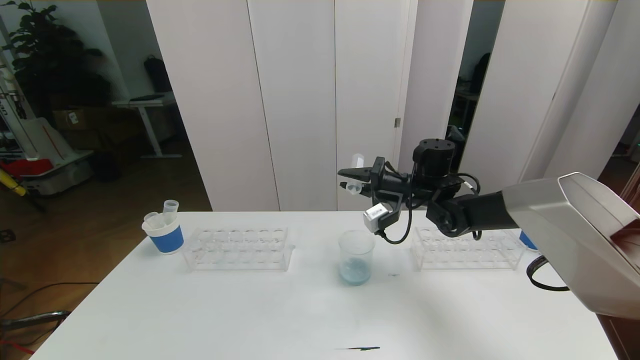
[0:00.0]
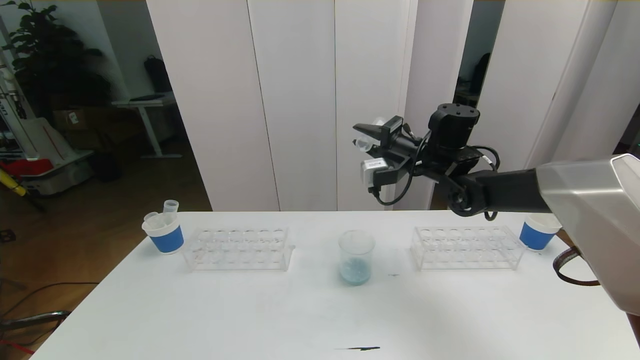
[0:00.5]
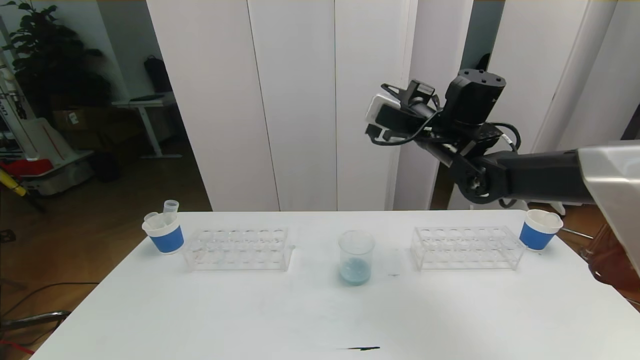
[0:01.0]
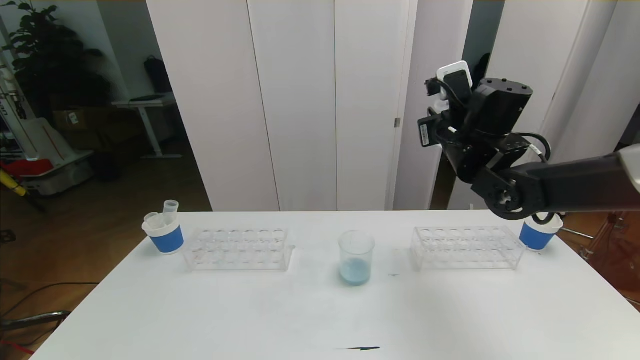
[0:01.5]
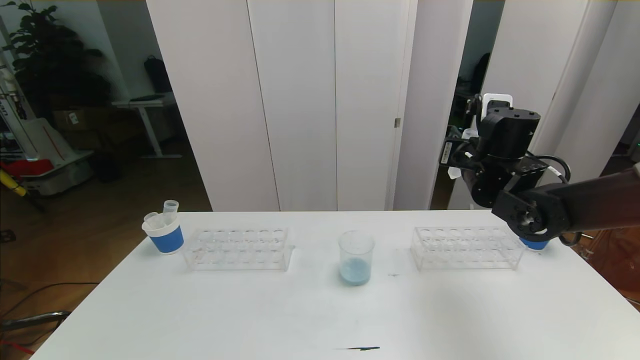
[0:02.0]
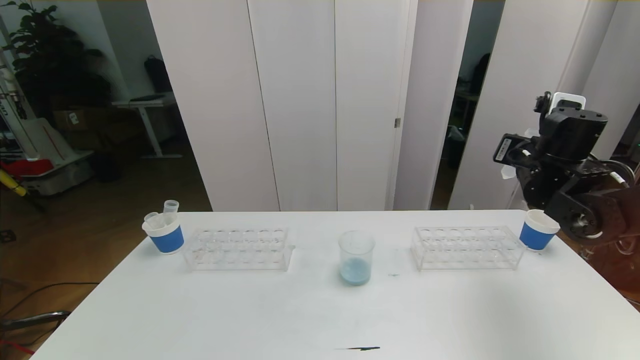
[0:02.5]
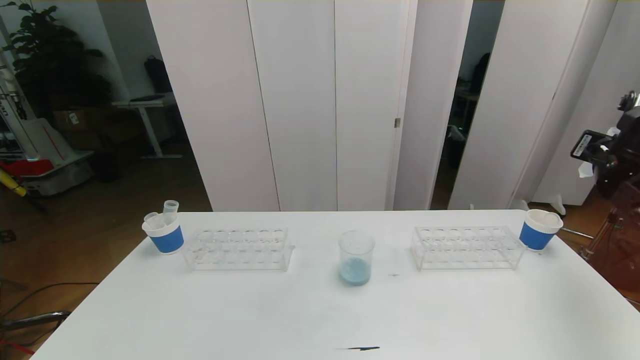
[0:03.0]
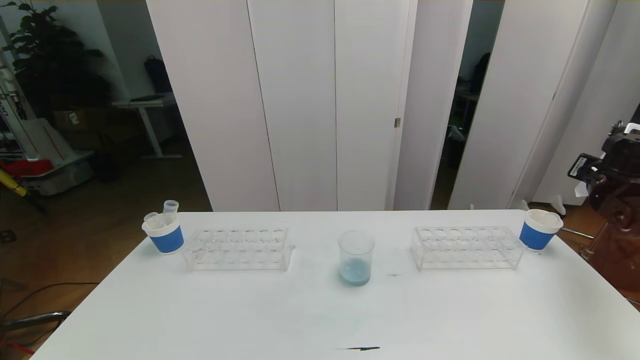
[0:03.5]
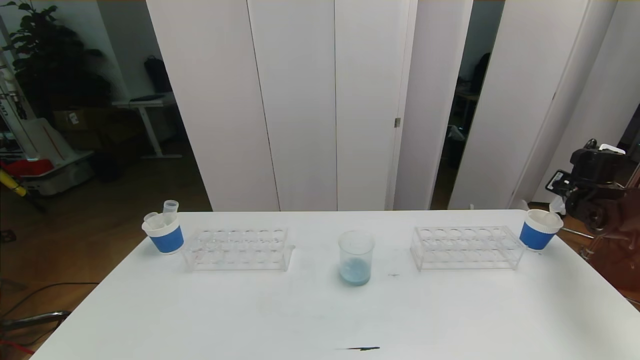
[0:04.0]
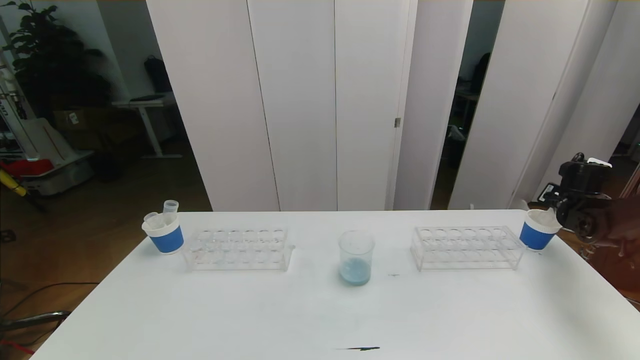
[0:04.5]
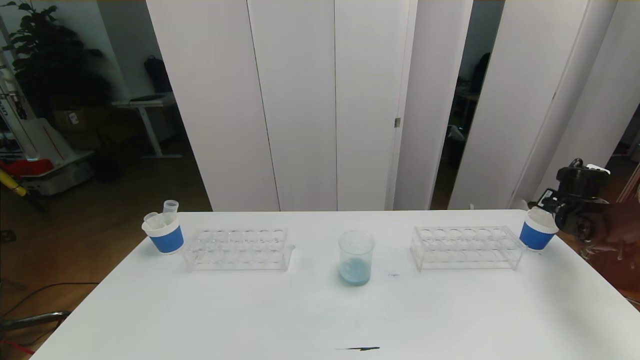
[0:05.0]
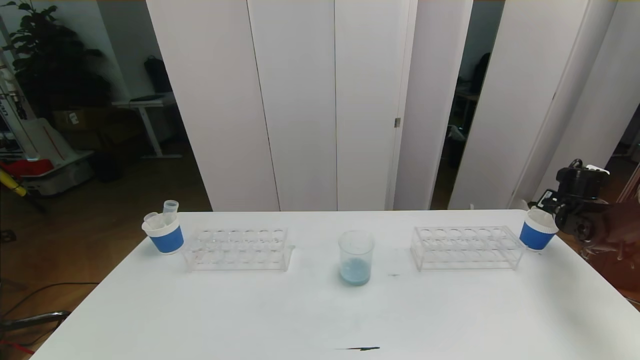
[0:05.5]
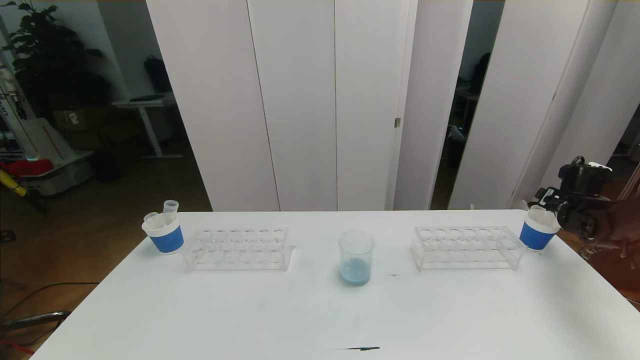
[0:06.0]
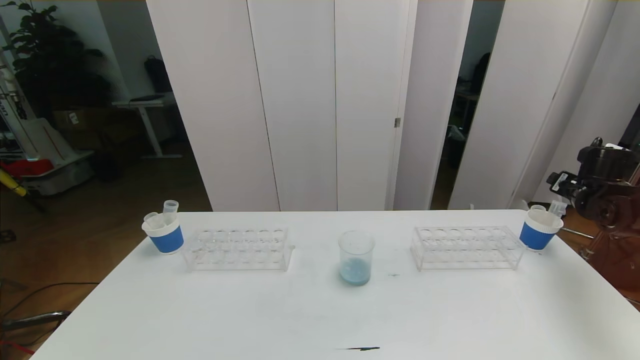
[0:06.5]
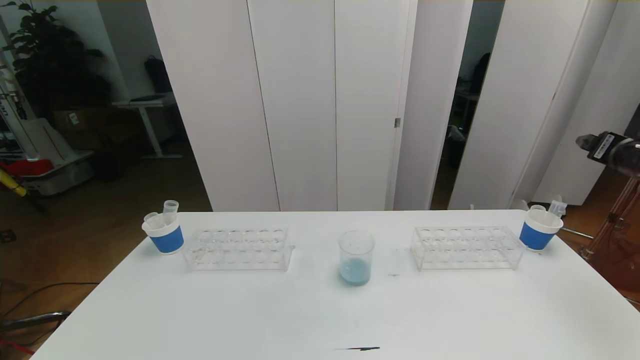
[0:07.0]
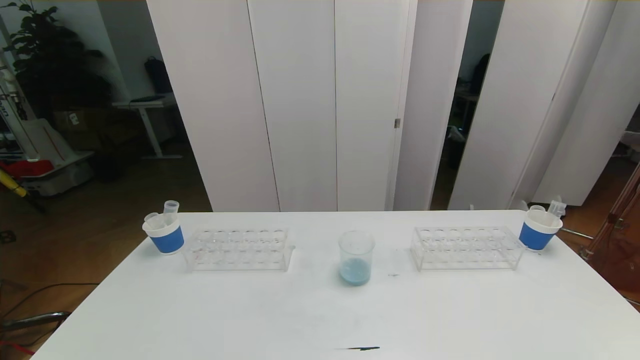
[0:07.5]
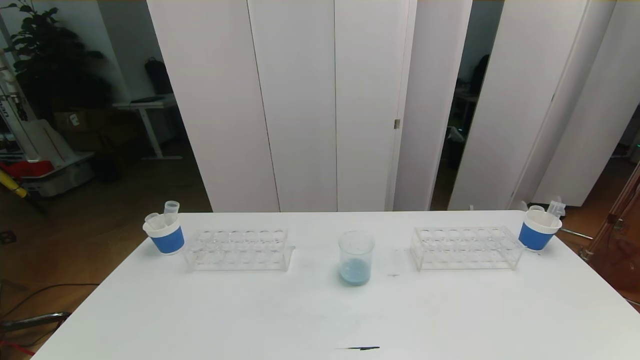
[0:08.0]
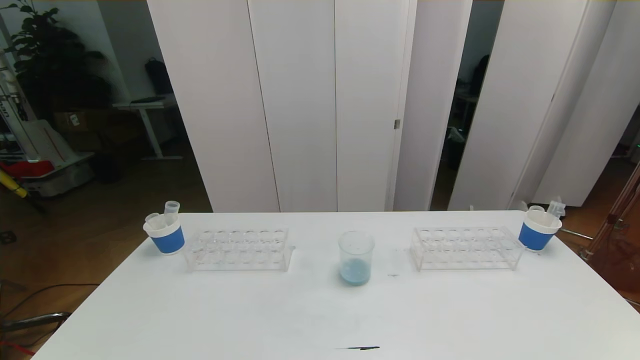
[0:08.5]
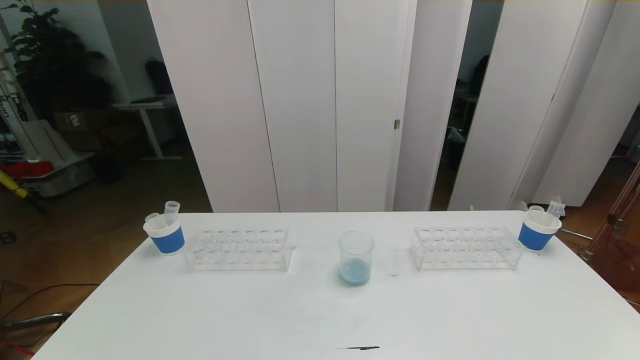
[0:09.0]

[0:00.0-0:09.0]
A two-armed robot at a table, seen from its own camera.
Task of the whole recording: pick up the test tube with red pigment the test tube with blue pigment and the test tube with white pigment by grippers and pour them into the beaker.
0:00.0 to 0:02.0: The right gripper shifts approximately 10 cm backward, to the right and upward.
0:02.0 to 0:04.5: The right gripper heads to the right and downward, covering some 30 cm.
0:04.5 to 0:07.0: The right gripper travels upward and backward by roughly 20 cm, and opens its fingers.
0:07.0 to 0:09.0: The right gripper heads backward and downward, covering roughly 40 cm.
